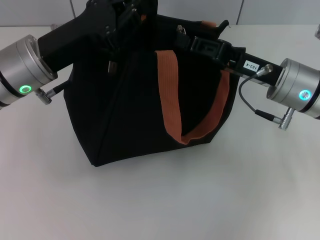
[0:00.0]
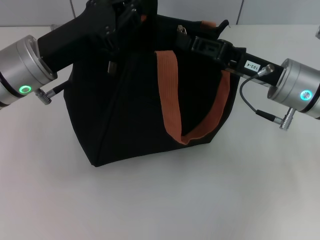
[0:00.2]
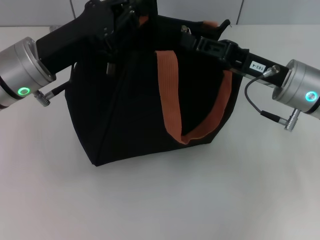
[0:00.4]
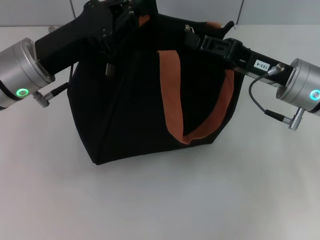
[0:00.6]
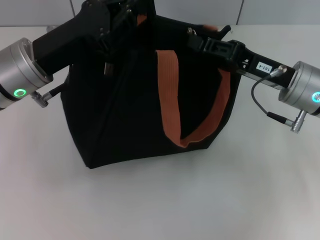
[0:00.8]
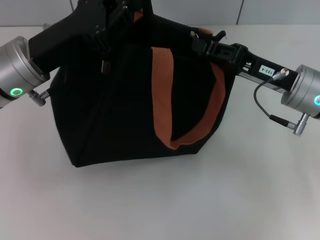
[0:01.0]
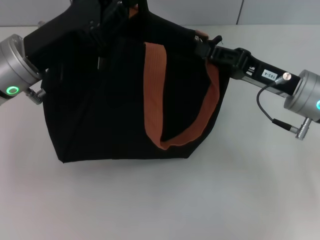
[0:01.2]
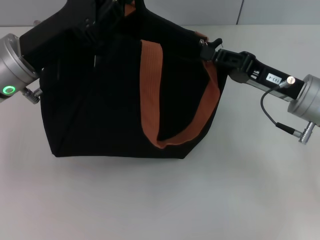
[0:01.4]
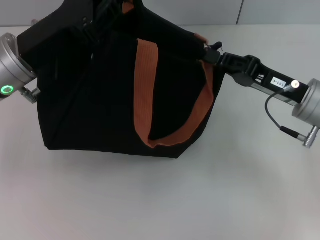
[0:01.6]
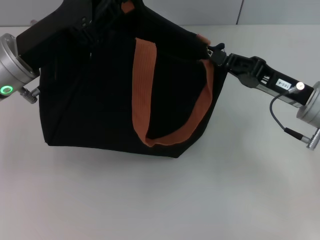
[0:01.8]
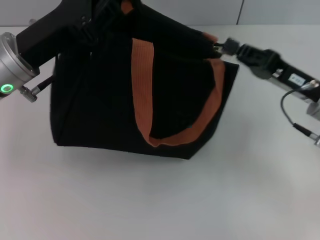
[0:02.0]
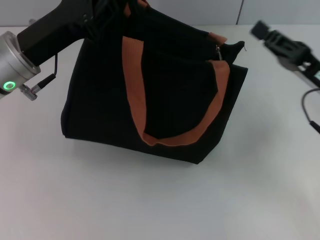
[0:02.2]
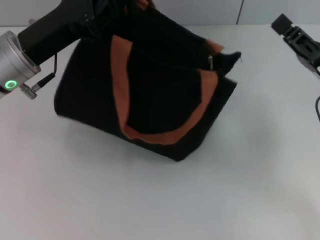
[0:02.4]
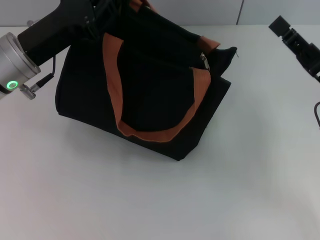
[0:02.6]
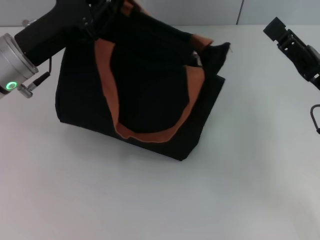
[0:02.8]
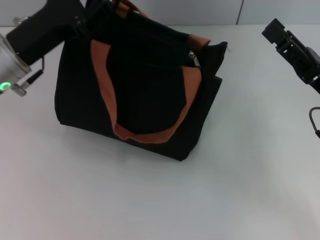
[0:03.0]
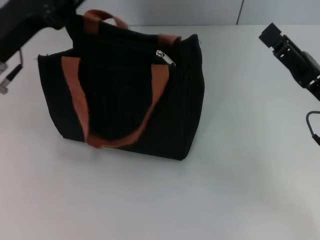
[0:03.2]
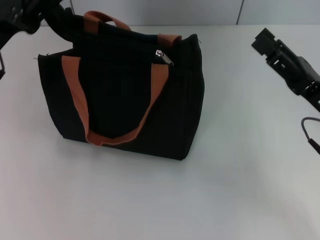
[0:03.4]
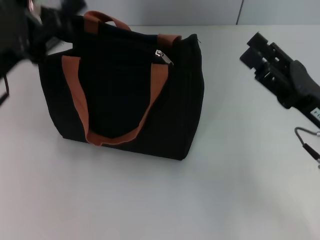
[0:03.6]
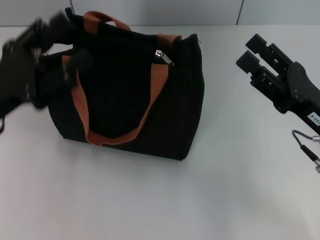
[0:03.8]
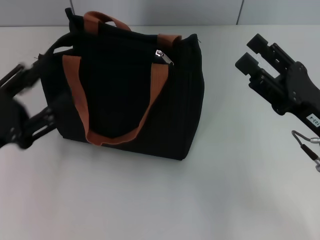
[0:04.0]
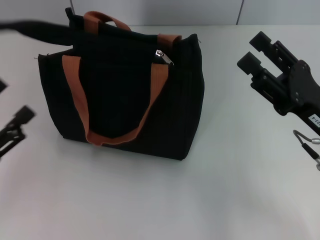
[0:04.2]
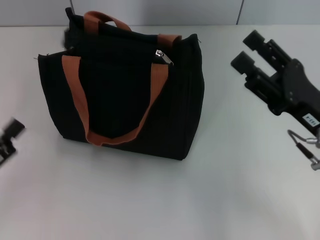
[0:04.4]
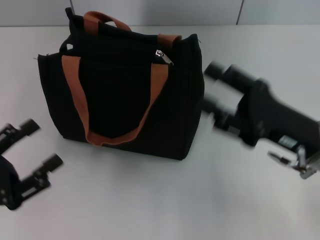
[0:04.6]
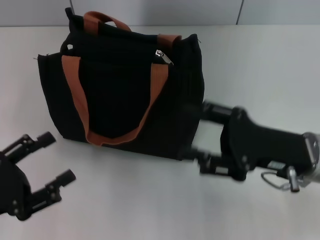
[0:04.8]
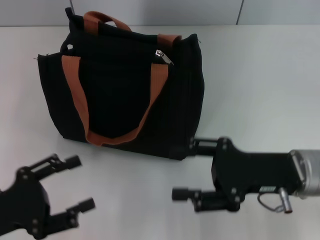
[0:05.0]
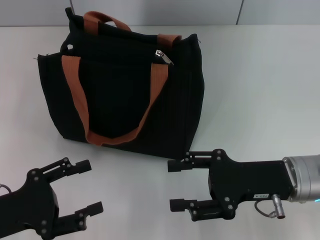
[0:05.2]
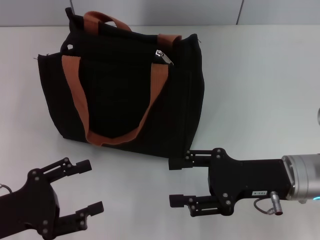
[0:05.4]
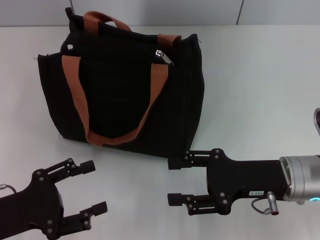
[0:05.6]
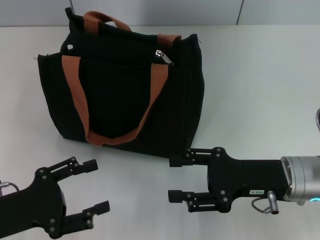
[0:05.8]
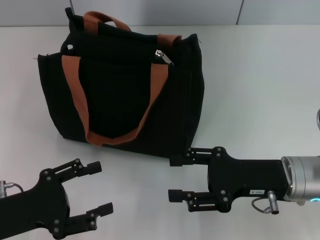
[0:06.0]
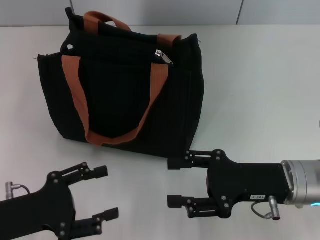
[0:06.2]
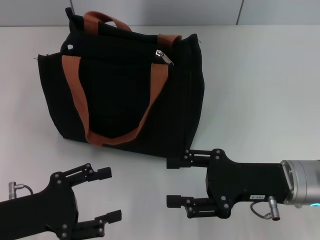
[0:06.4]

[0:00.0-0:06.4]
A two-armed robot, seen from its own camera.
Step, 0:00.0 to 0:02.2: Pull up the zipper with your right hand.
Step, 0:02.6 to 0:03.4: Grab the zipper with your left hand.
0:01.6 to 0:03.2: The right gripper shifts roughly 5 cm backward, and opens; the left gripper opens up.
0:03.2 to 0:04.8: The left gripper moves backward and downward, approximately 20 cm, and opens. Meanwhile the right gripper shifts by approximately 5 cm.

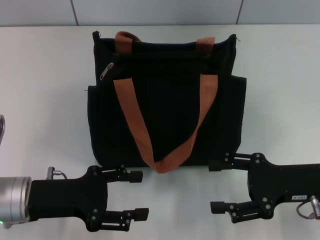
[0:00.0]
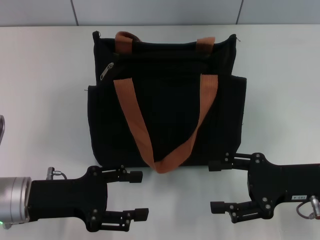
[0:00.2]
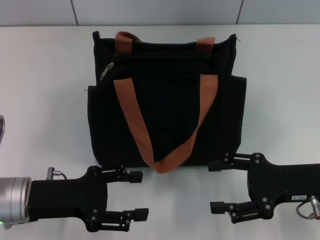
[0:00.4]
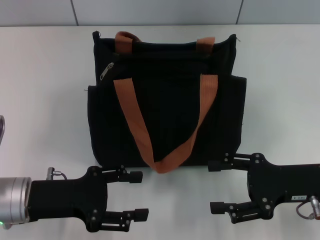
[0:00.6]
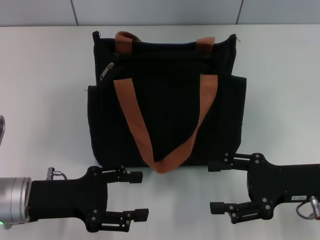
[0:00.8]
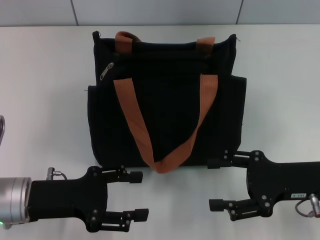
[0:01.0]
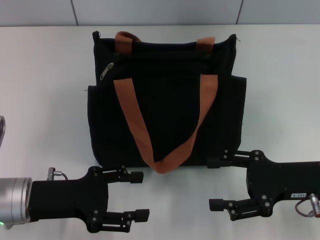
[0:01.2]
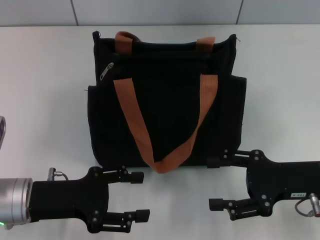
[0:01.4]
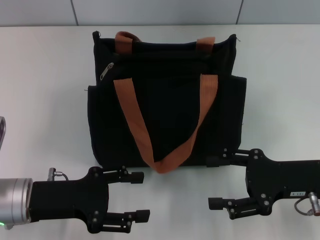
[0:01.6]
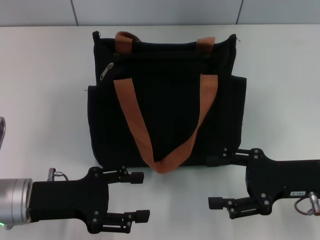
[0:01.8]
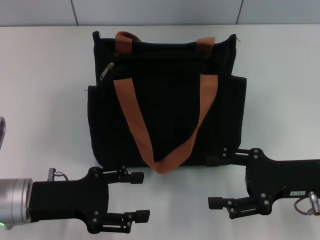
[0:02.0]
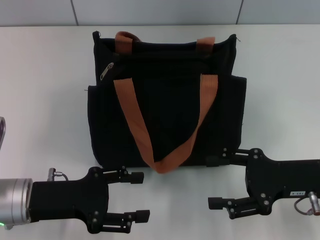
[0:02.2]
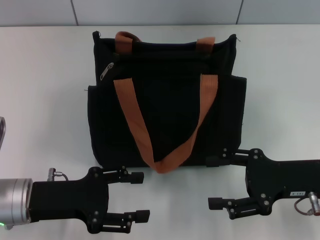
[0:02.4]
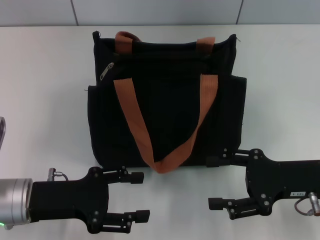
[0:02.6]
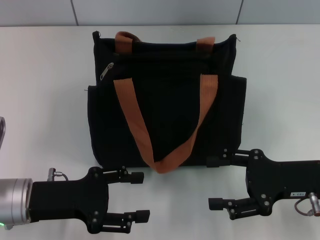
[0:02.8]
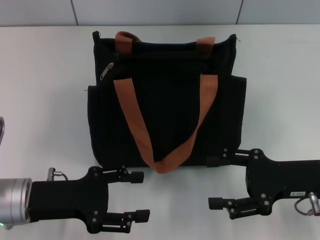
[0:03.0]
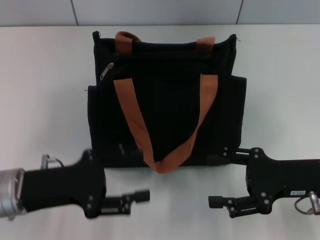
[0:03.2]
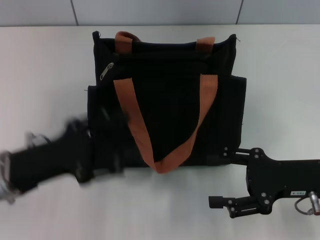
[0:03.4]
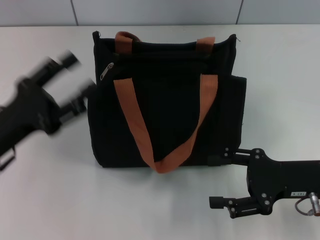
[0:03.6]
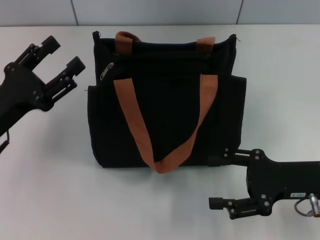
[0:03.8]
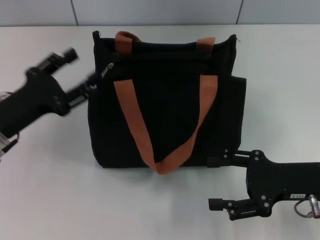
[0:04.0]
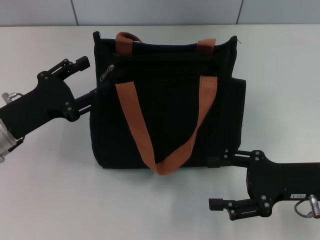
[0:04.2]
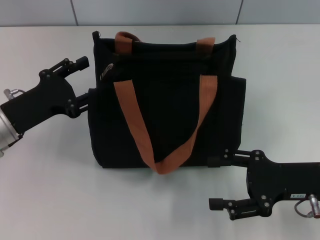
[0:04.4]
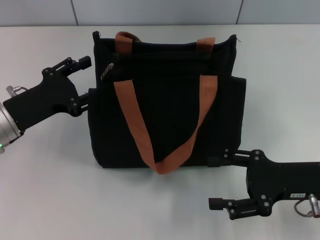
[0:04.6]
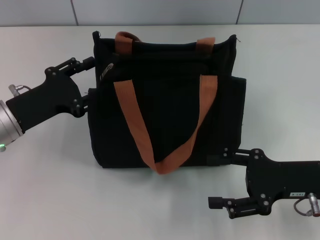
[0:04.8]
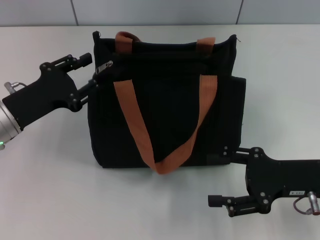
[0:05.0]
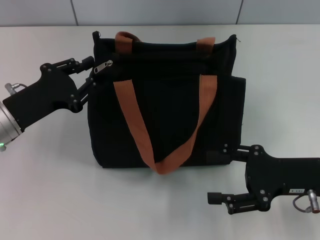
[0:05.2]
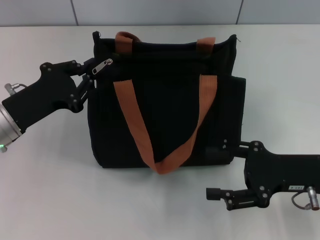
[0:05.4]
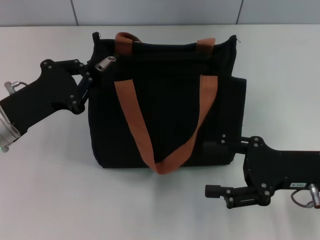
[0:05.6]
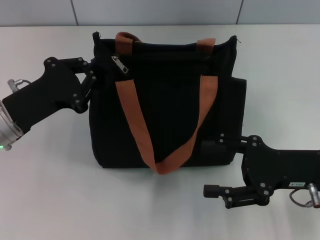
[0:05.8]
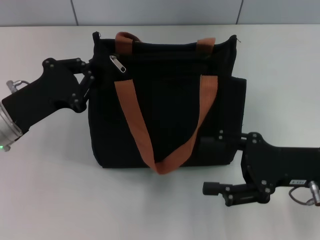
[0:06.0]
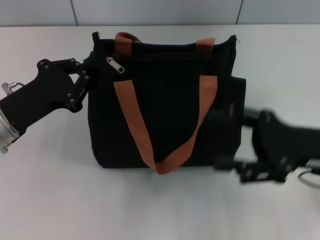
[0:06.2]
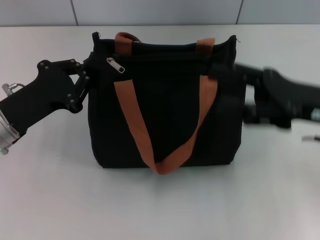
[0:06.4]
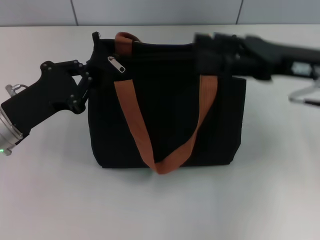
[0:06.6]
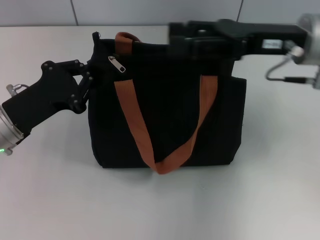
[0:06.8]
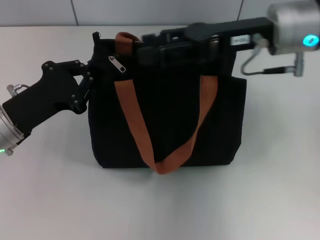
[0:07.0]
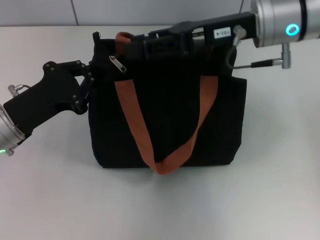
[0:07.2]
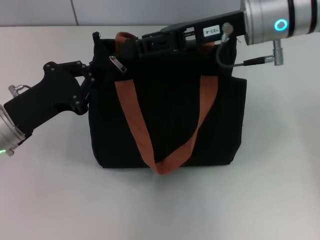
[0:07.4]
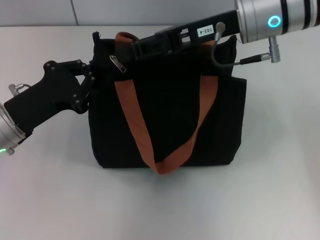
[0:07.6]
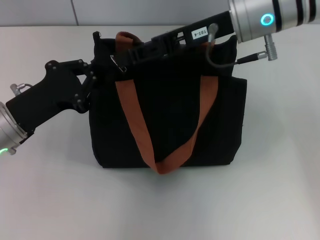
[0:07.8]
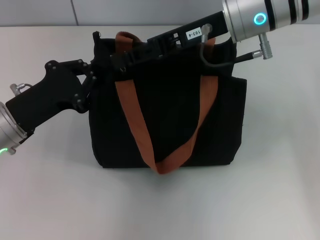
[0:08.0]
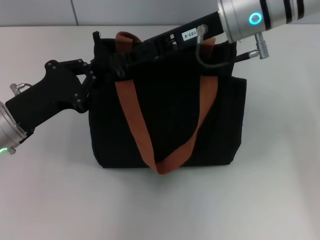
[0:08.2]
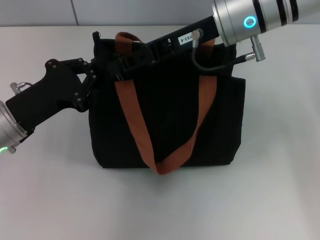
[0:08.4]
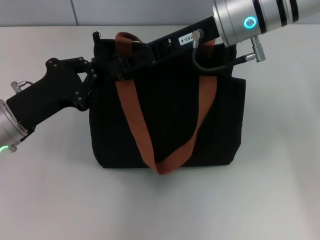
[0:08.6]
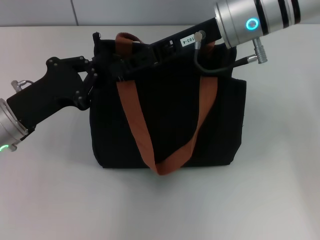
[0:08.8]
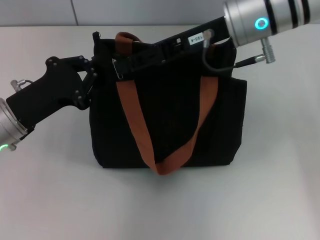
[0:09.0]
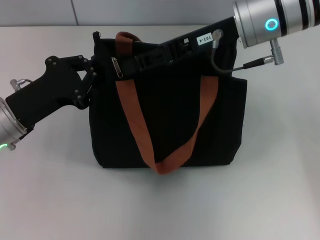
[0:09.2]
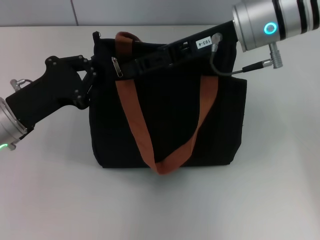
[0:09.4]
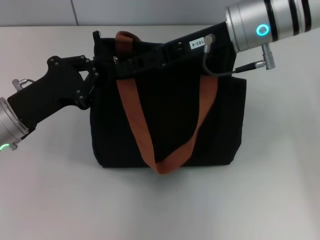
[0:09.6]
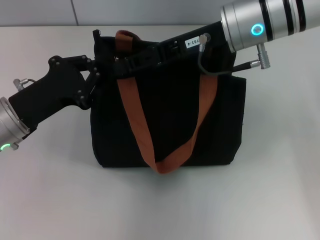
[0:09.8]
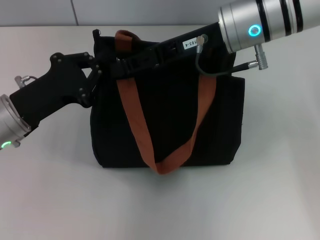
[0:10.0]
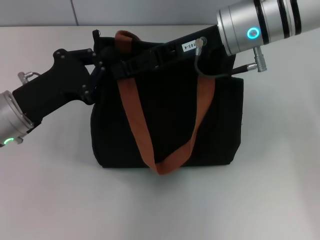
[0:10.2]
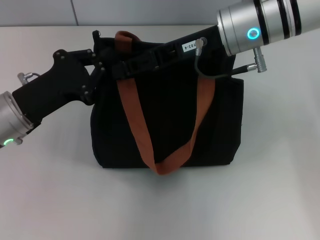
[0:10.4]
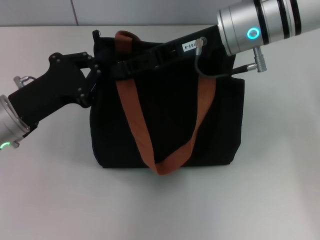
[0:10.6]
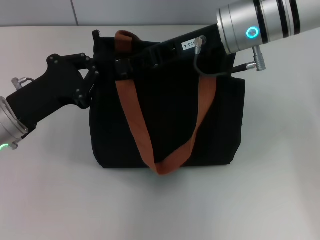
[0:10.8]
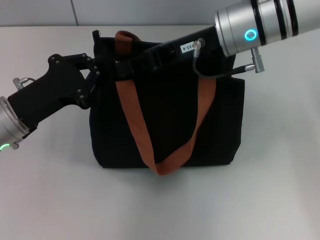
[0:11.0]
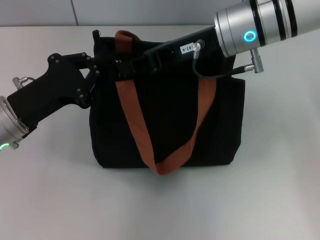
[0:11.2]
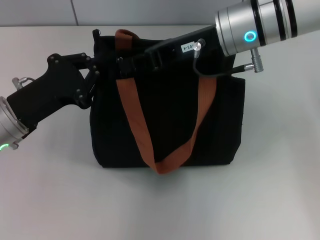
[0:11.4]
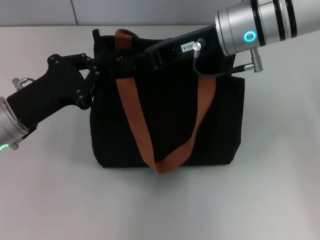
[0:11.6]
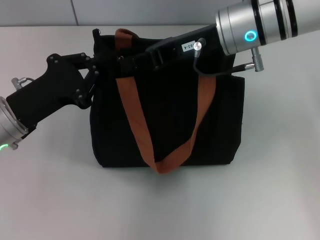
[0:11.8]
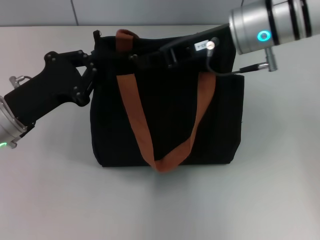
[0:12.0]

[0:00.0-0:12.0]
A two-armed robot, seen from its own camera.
0:00.0 to 0:03.0: Both grippers stay put.
0:03.0 to 0:04.4: The left gripper shifts some 5 cm forward.
0:04.4 to 0:06.0: The left gripper closes up.
0:06.0 to 0:07.6: The right gripper shifts approximately 20 cm forward, upward and to the left, and closes its fingers.
0:07.6 to 0:09.0: There are only small adjustments of the grippers.
0:09.0 to 0:10.4: The two grippers keep their place.
0:10.4 to 0:12.0: The right gripper closes its fingers.

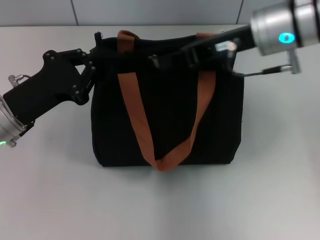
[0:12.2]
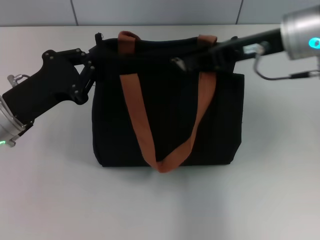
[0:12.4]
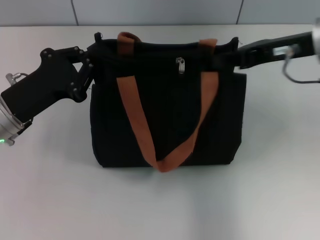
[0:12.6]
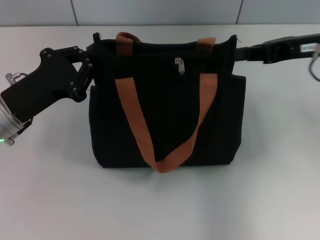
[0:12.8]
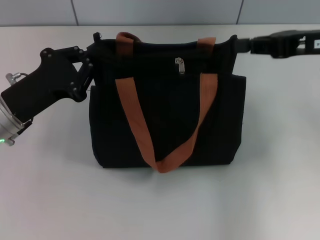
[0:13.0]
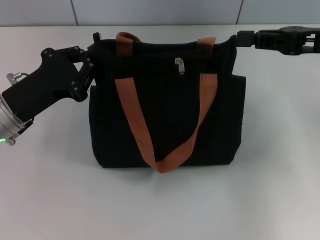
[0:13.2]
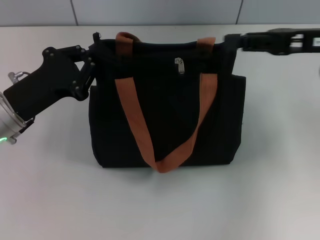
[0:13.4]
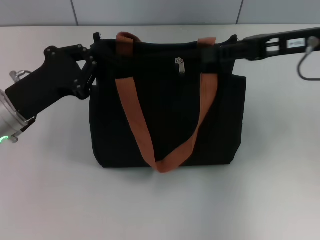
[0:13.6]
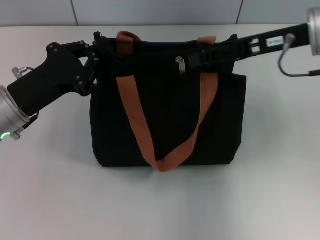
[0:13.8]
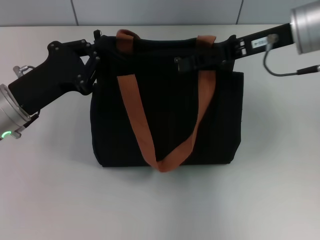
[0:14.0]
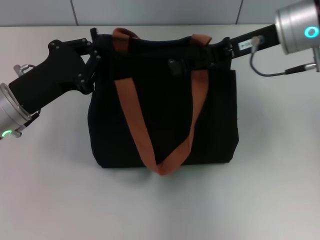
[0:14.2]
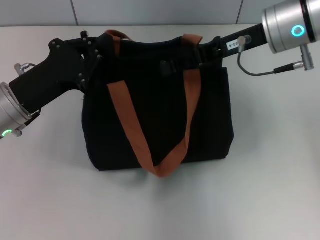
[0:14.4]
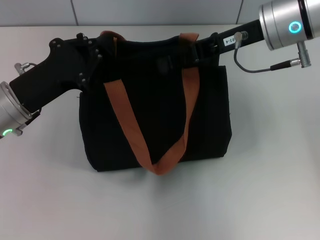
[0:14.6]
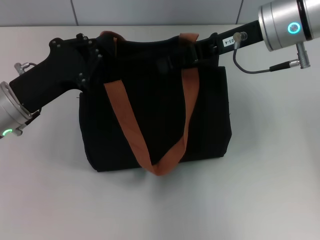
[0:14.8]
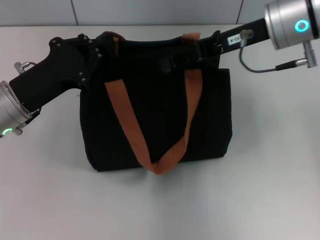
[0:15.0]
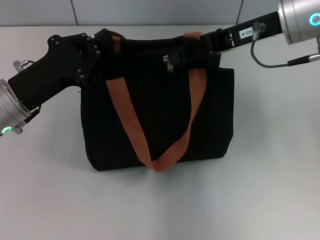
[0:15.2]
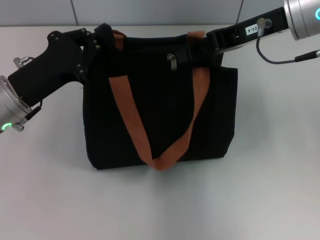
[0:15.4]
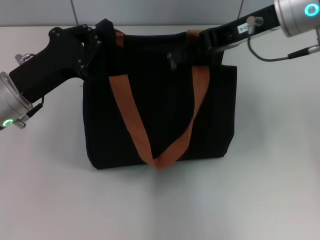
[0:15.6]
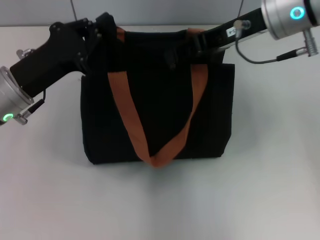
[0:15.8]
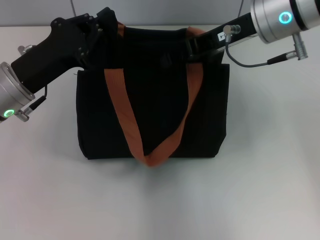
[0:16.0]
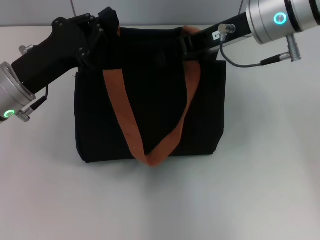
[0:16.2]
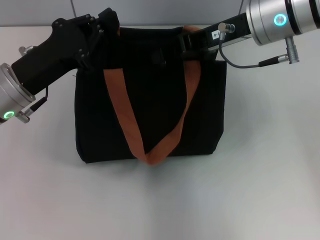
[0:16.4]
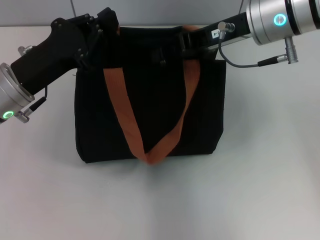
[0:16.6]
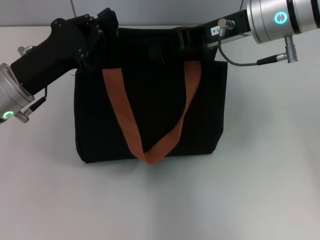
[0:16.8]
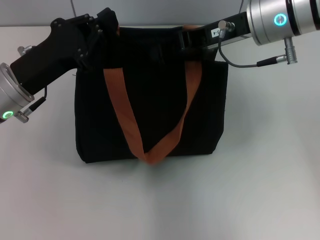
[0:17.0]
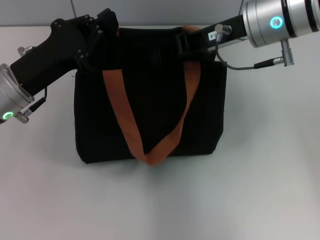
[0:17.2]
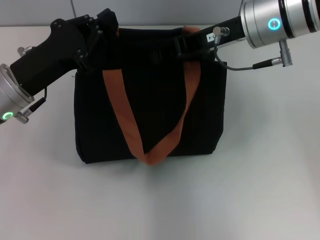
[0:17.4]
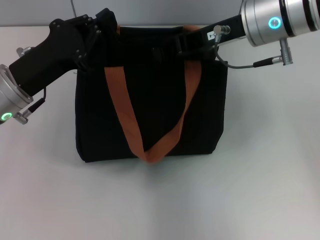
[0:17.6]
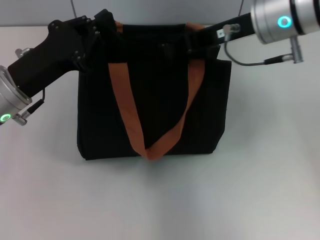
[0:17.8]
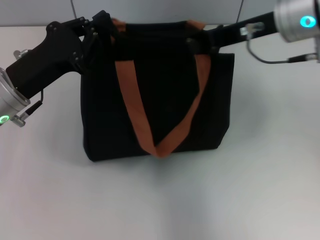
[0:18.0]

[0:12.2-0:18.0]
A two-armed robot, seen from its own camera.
0:12.2 to 0:13.6: The right gripper goes approximately 10 cm to the right.
0:13.6 to 0:15.0: The right gripper is displaced to the left by about 5 cm.
0:16.6 to 0:18.0: The grippers move only a little.
